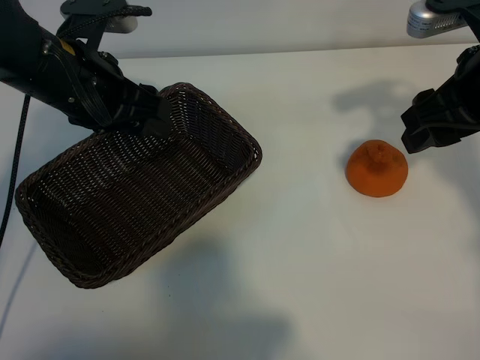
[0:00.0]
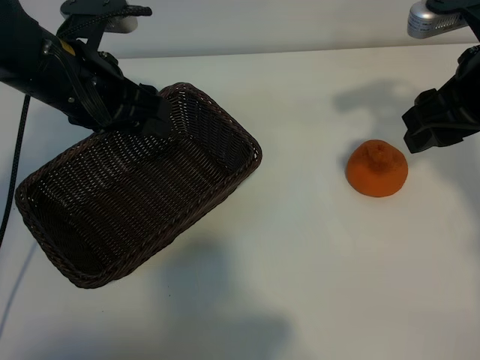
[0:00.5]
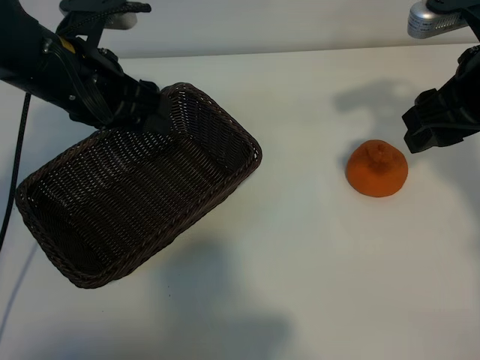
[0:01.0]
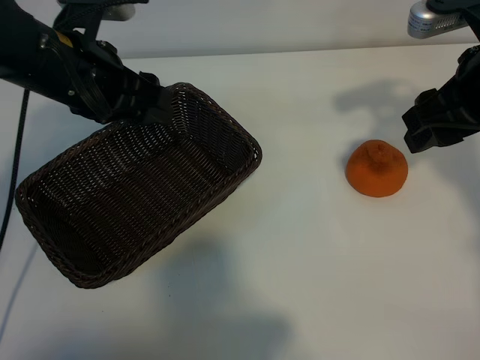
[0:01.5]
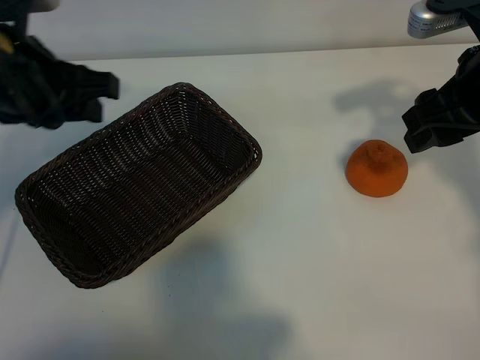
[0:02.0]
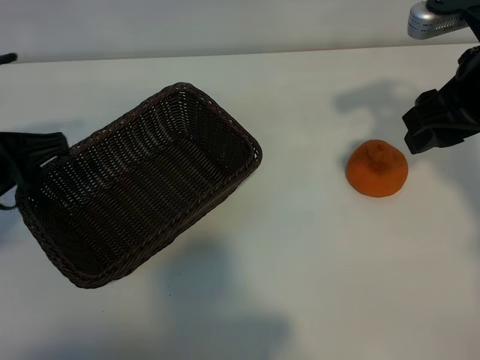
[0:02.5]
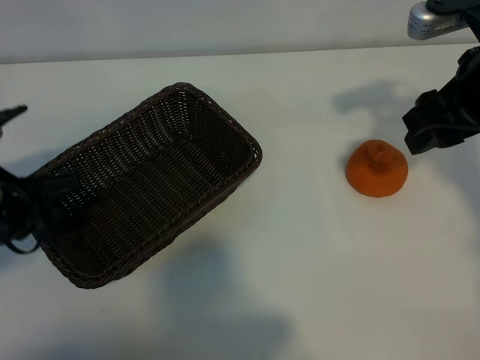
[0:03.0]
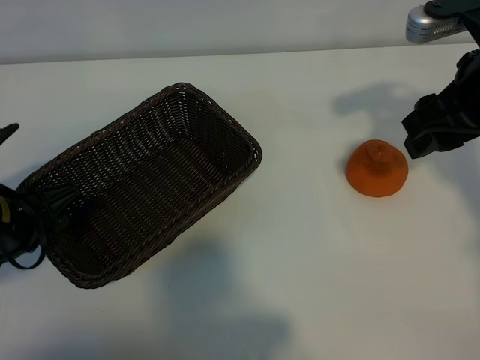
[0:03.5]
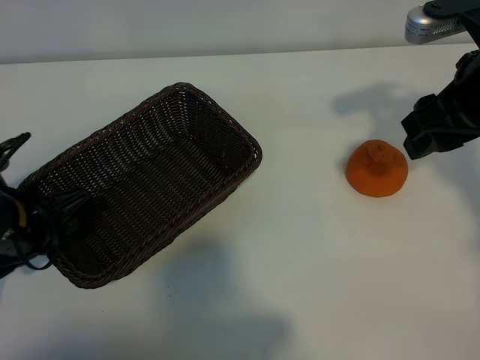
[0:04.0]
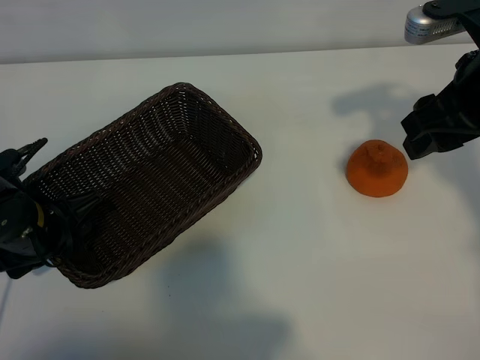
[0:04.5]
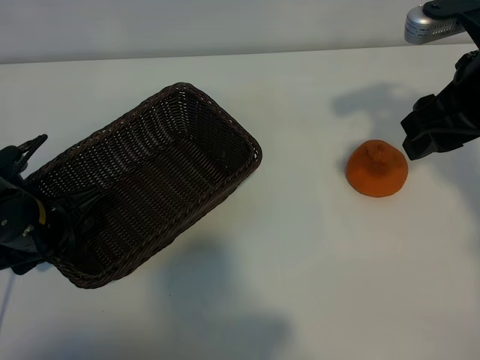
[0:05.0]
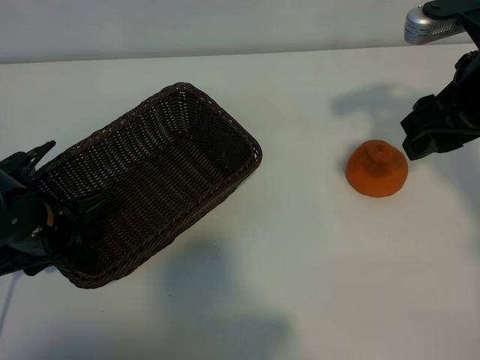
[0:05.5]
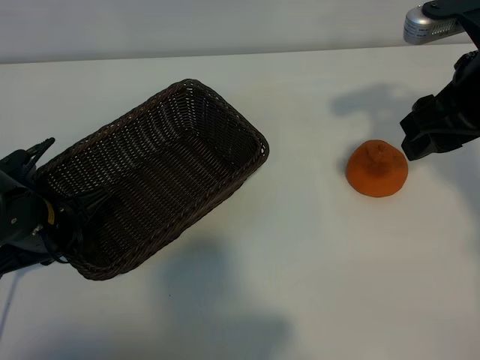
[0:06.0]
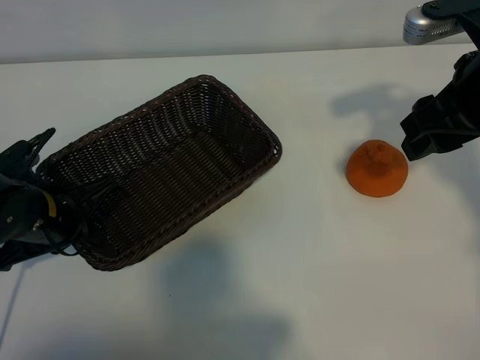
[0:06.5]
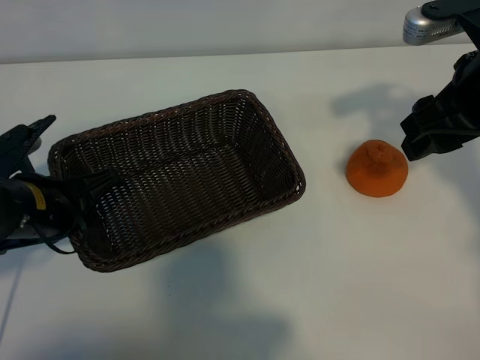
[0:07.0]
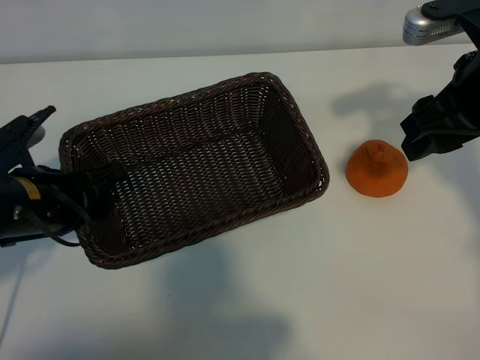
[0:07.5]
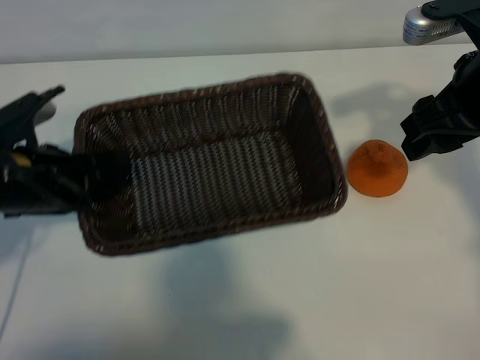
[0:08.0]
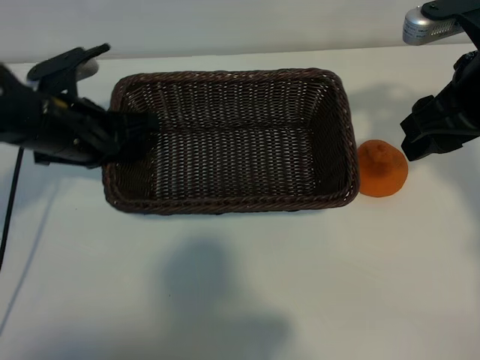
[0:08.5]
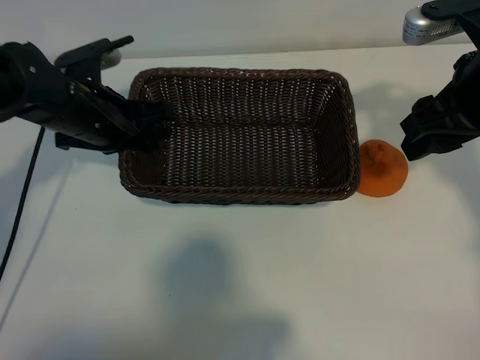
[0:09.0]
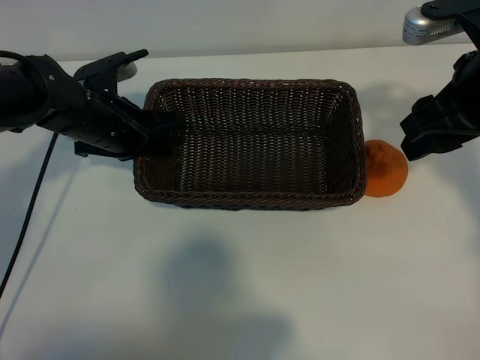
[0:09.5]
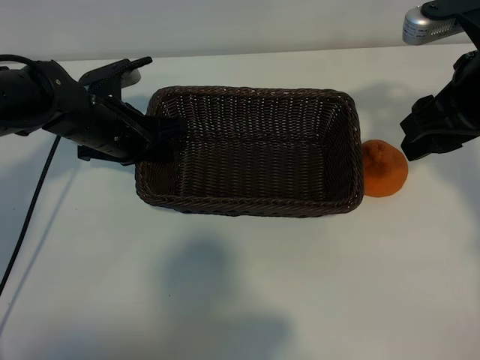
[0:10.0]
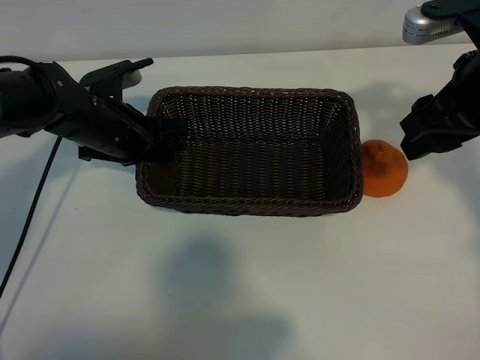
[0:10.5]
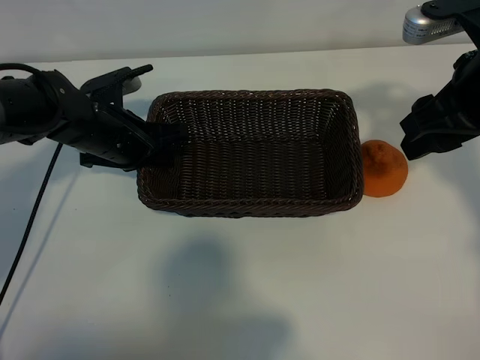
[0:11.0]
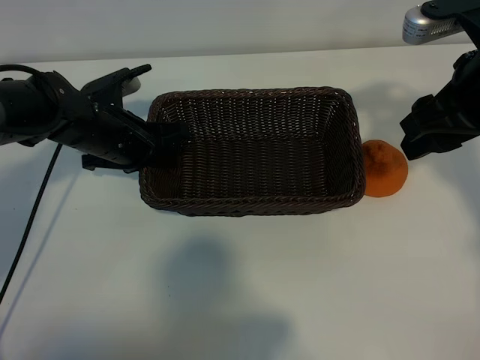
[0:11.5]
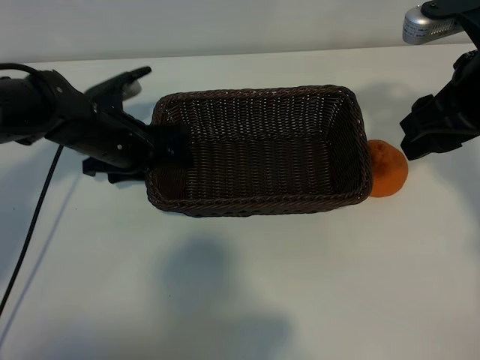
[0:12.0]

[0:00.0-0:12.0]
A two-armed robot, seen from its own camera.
Task of the whole recording: pick up the orange and put it into the basket.
Step, 0:00.0 to 0:05.5: Grasp the basket with left gripper.
Step, 0:06.0 to 0:11.5: Place the basket in the center of view with left gripper.

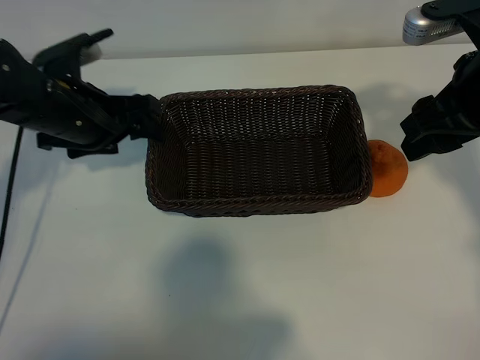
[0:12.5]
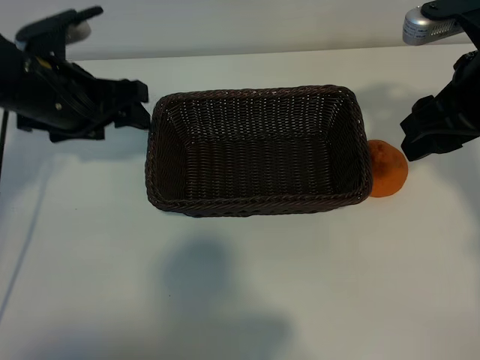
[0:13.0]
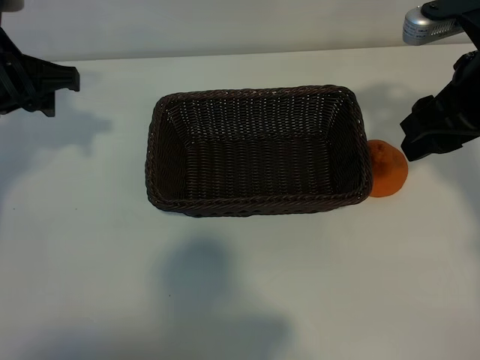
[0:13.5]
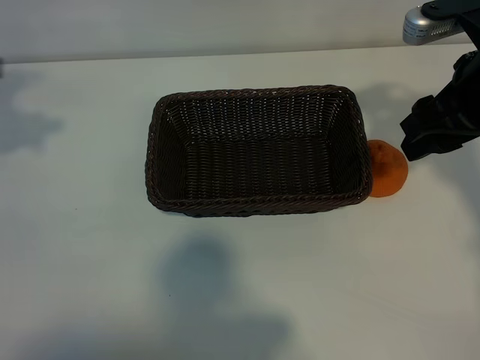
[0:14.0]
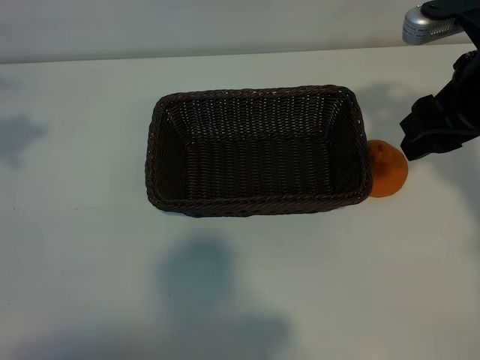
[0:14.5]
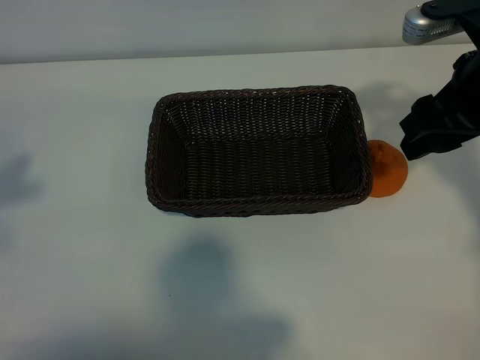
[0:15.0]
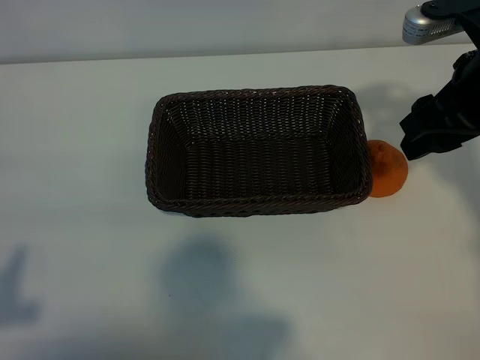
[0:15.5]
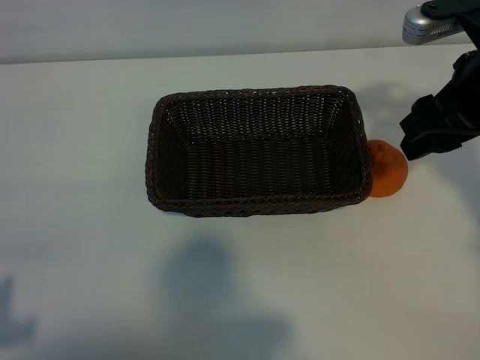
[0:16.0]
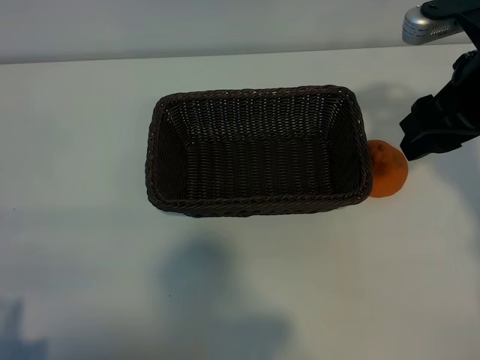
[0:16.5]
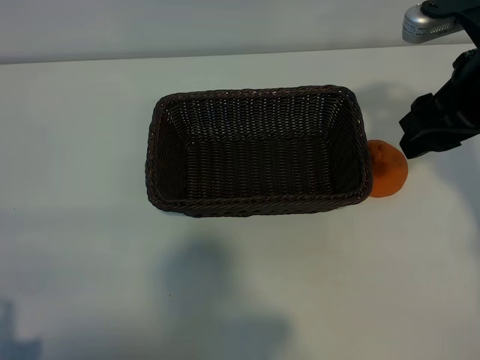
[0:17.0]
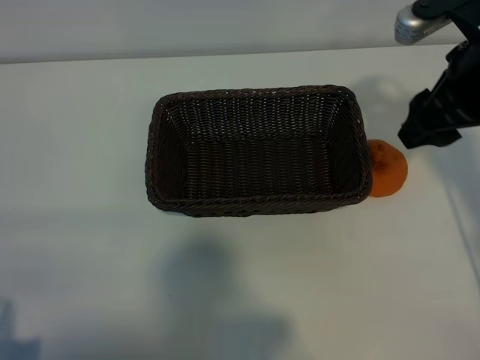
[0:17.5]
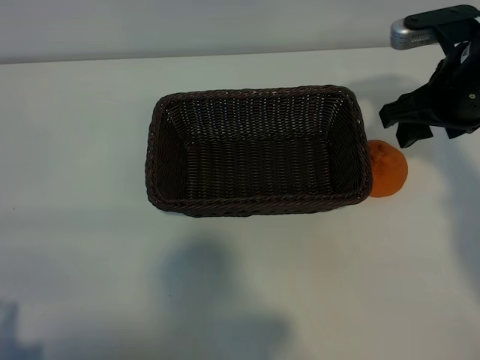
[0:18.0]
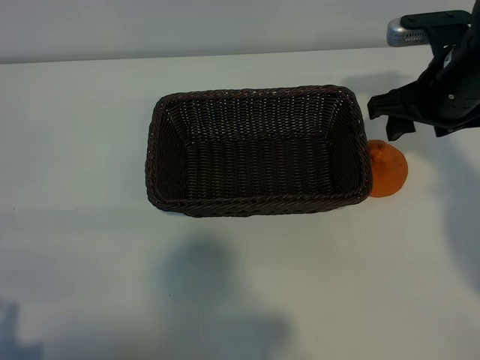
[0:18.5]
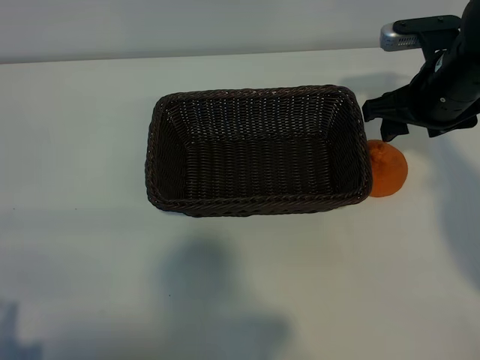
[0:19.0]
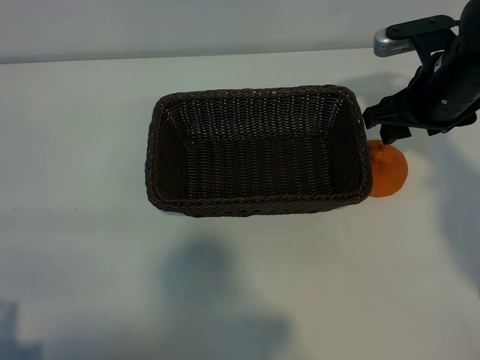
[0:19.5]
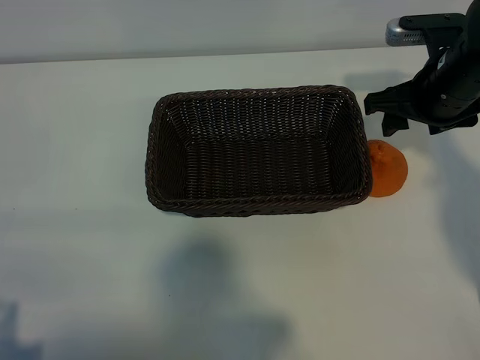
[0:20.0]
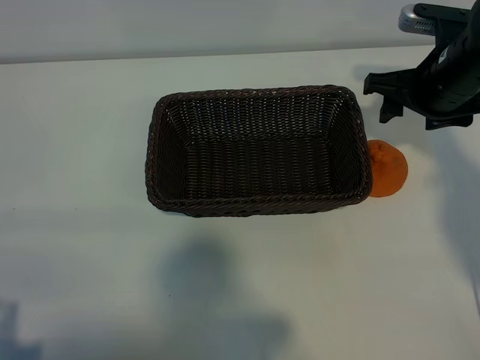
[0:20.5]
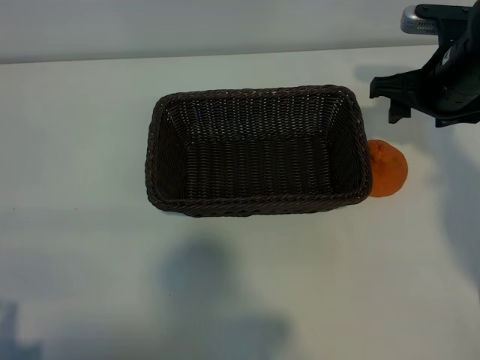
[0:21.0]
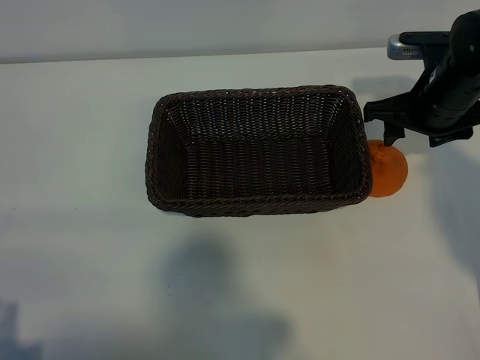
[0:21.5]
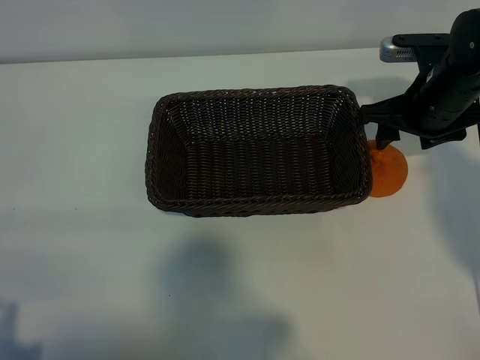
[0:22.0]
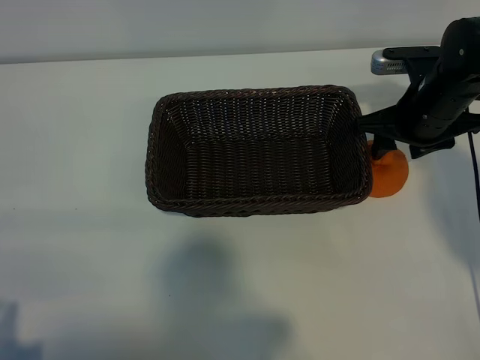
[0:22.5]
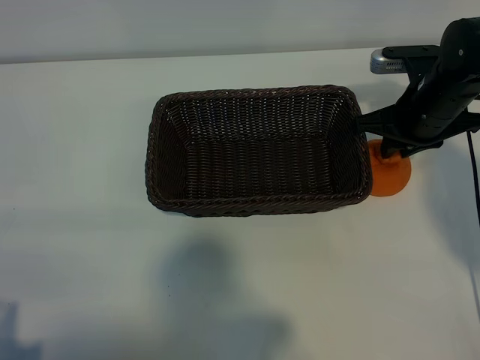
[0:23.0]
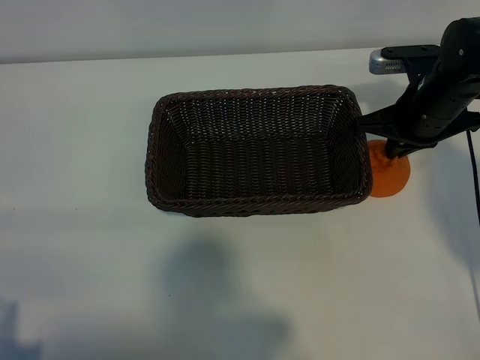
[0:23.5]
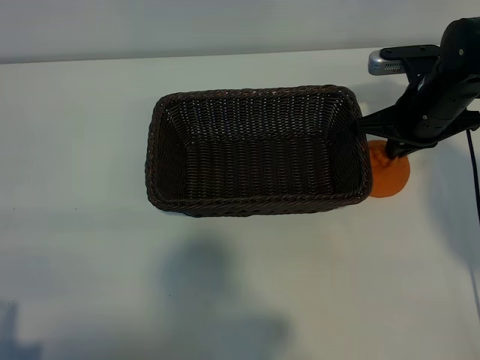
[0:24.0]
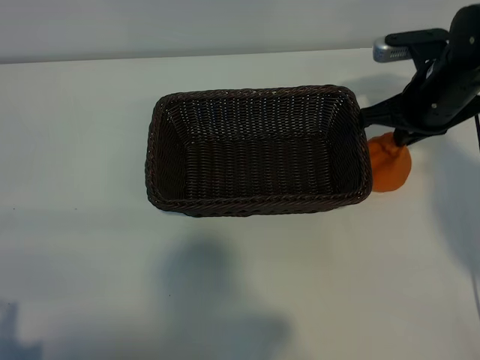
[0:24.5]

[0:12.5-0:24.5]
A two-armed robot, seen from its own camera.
Task of the whole recording: pick up the orange and put it into the basket.
Step, 0:12.5 to 0:23.0: Grasp the orange with right gripper.

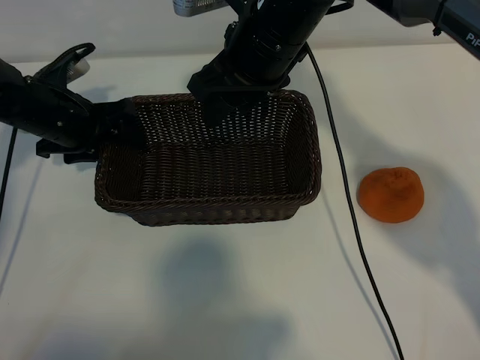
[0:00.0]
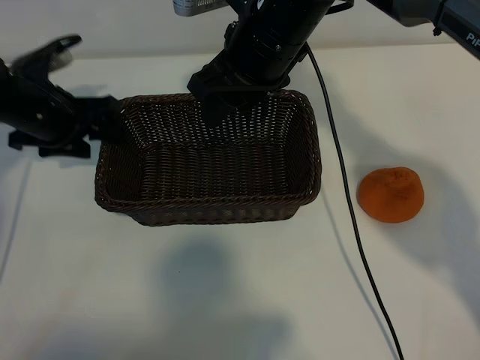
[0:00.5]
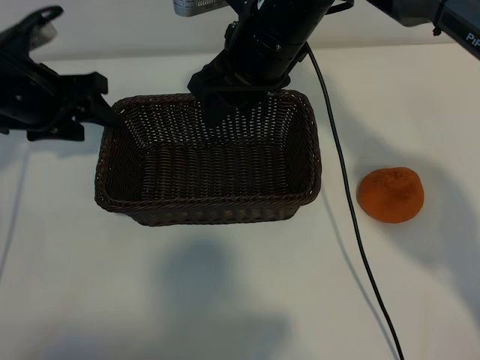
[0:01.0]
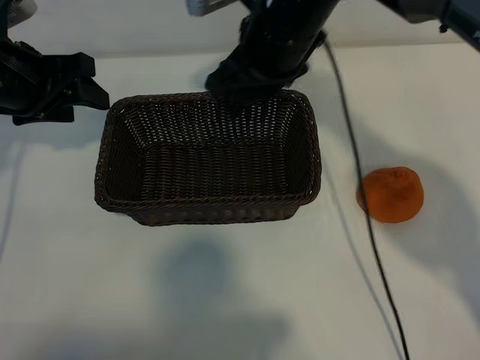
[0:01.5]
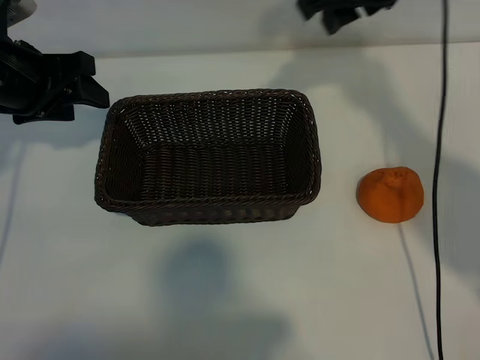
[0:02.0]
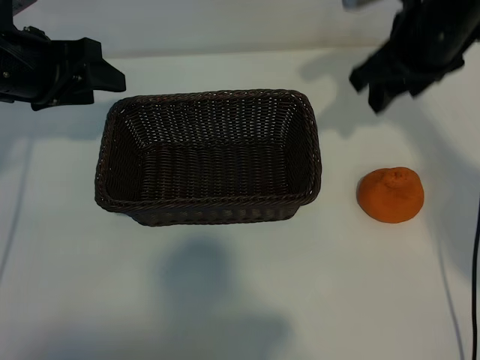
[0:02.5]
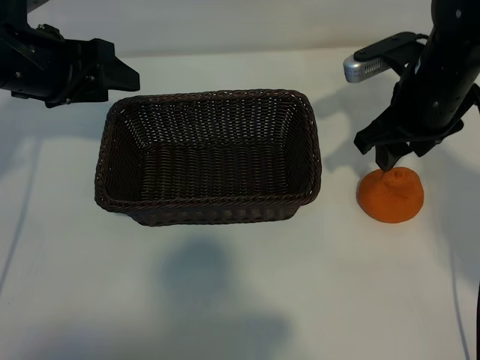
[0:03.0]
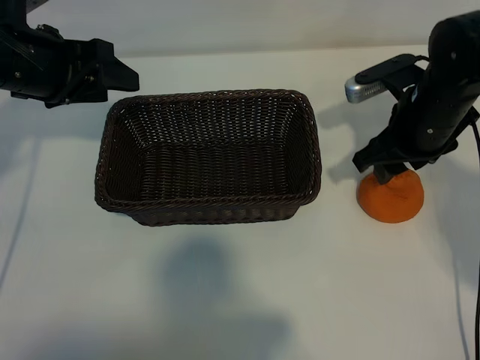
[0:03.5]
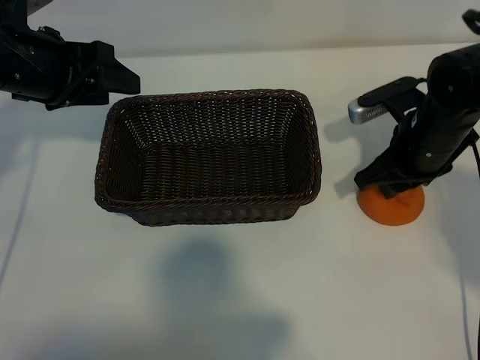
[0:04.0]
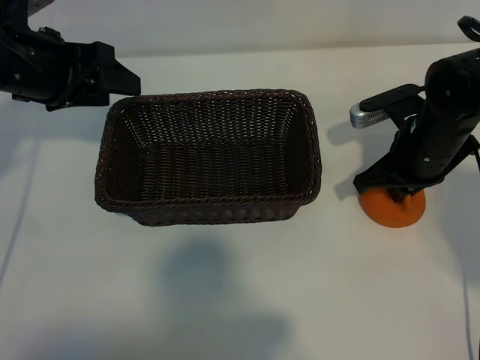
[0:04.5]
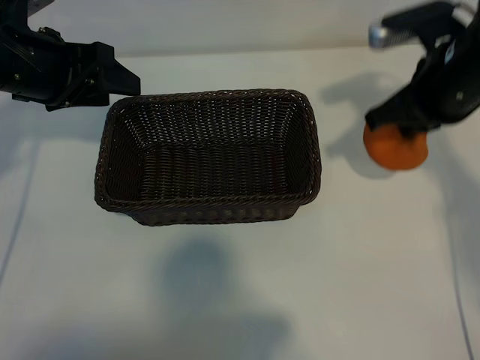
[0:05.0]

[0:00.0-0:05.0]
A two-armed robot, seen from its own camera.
Task of the whole recording: pick up the orange and put it into the basket.
Step, 0:00.0 to 0:04.0: Grasp the orange with right gripper.
